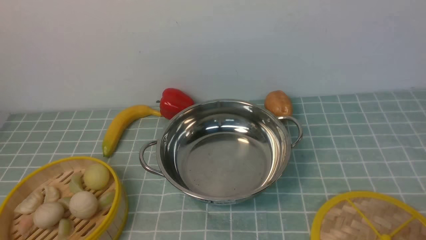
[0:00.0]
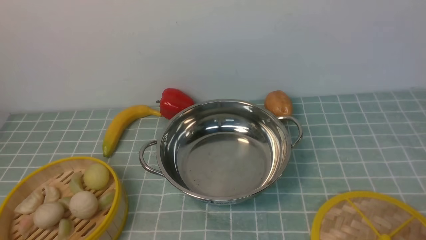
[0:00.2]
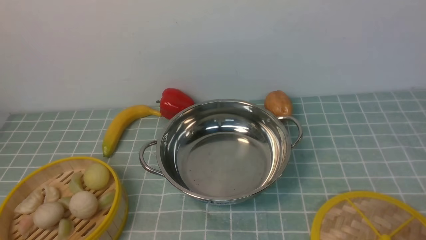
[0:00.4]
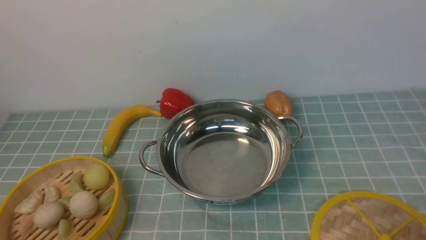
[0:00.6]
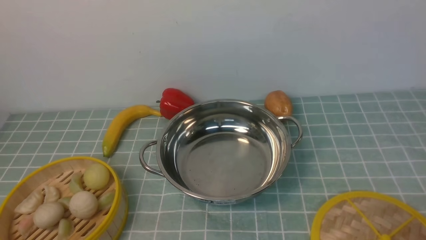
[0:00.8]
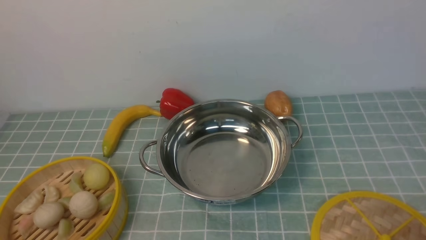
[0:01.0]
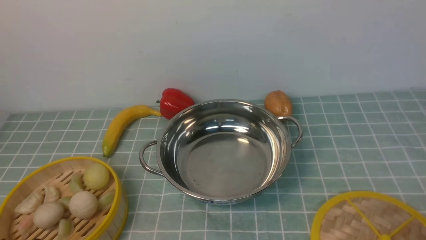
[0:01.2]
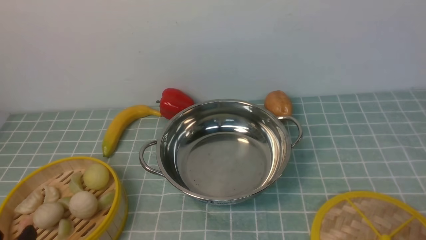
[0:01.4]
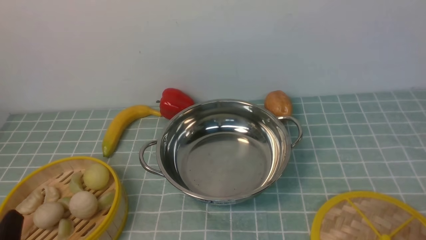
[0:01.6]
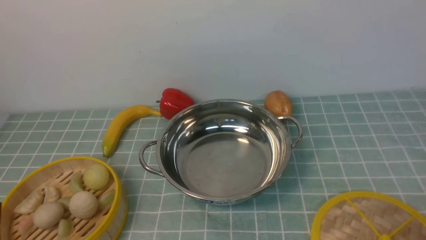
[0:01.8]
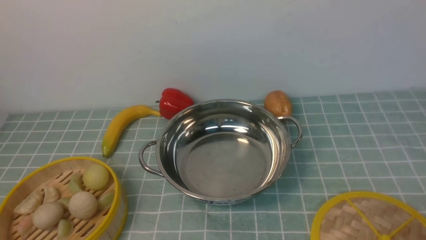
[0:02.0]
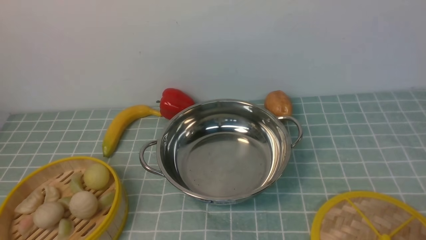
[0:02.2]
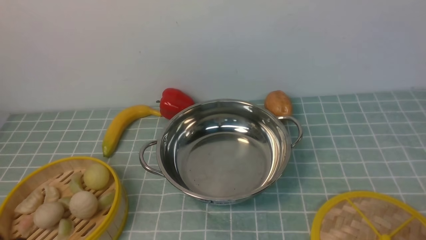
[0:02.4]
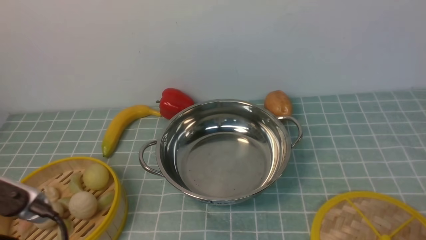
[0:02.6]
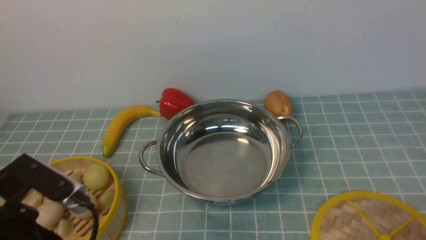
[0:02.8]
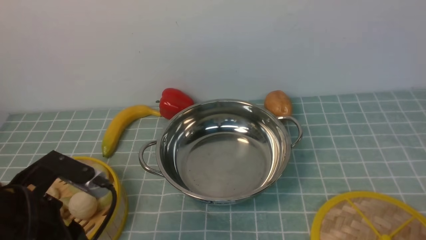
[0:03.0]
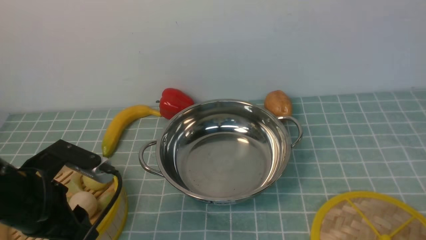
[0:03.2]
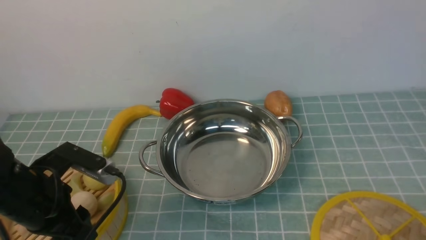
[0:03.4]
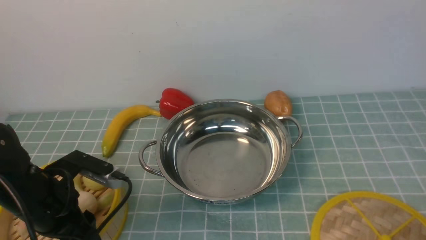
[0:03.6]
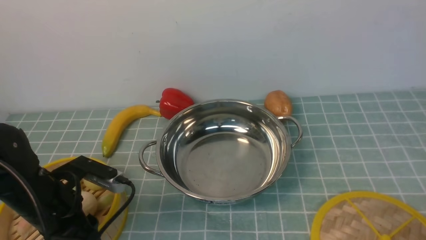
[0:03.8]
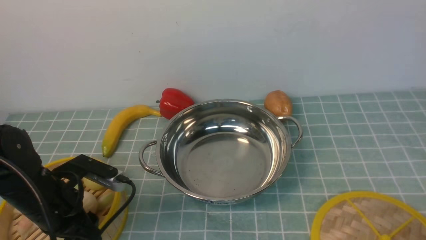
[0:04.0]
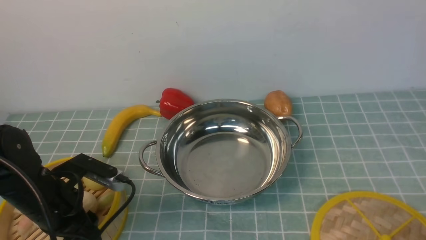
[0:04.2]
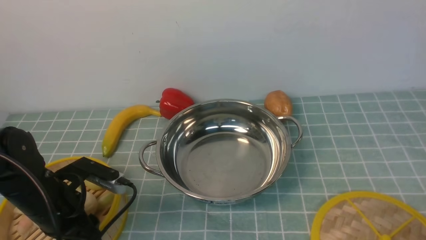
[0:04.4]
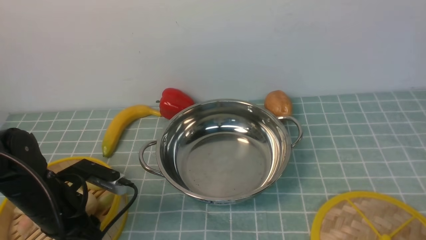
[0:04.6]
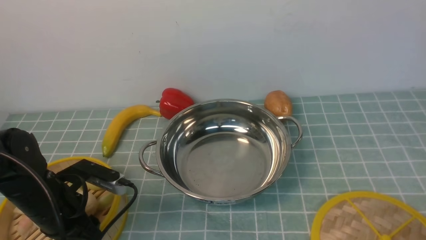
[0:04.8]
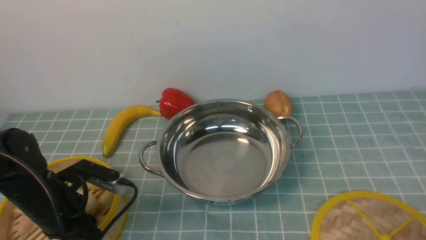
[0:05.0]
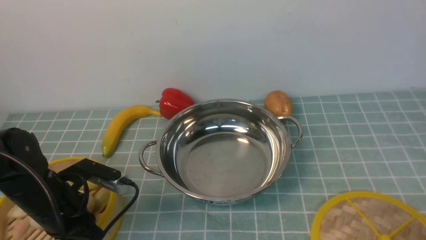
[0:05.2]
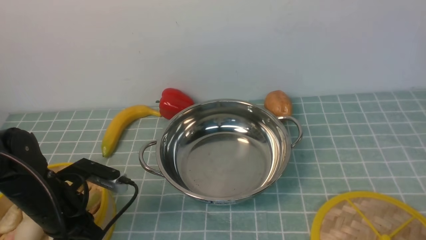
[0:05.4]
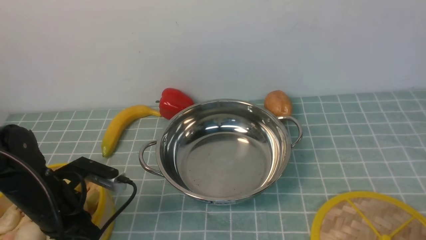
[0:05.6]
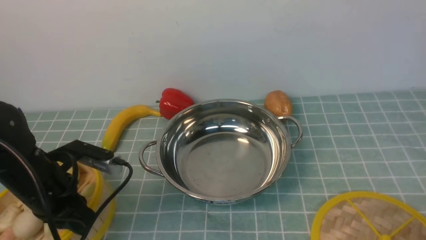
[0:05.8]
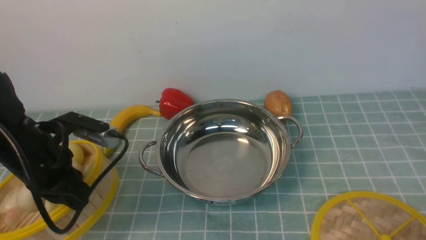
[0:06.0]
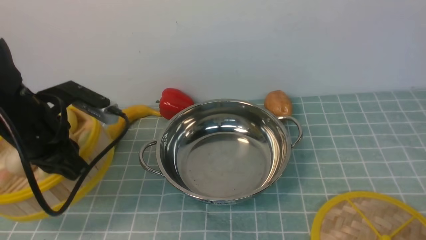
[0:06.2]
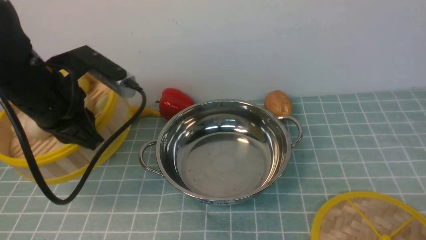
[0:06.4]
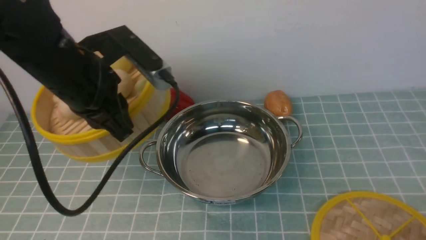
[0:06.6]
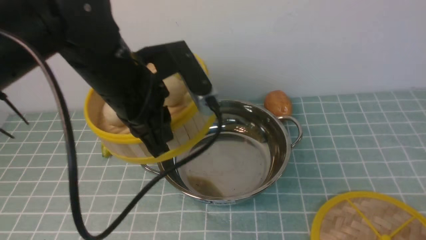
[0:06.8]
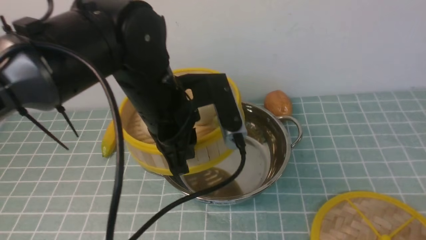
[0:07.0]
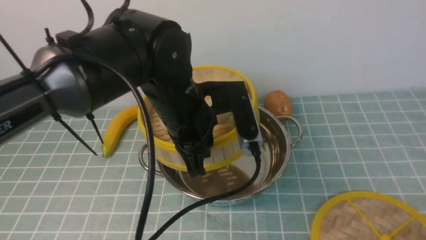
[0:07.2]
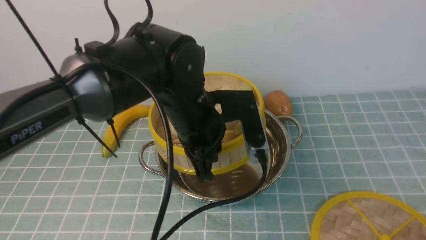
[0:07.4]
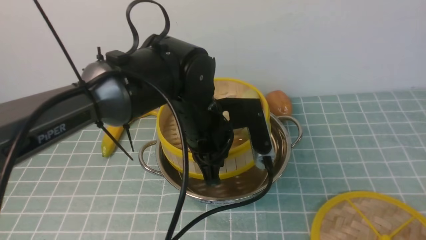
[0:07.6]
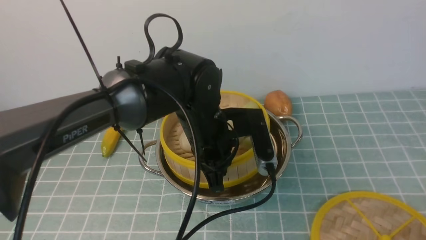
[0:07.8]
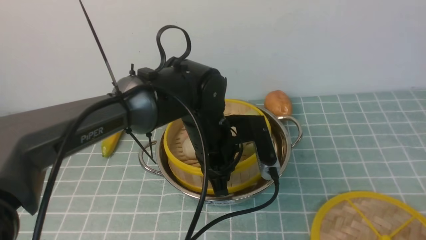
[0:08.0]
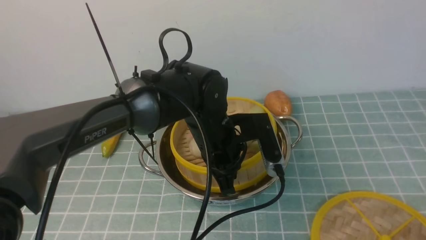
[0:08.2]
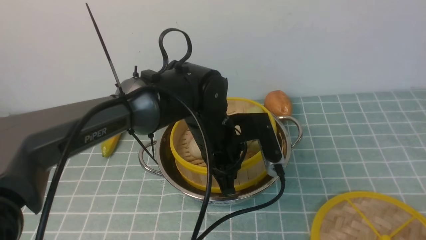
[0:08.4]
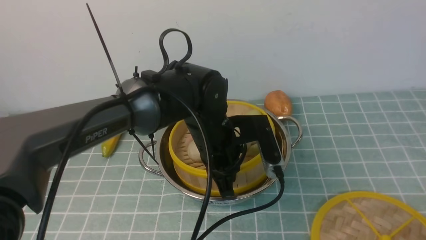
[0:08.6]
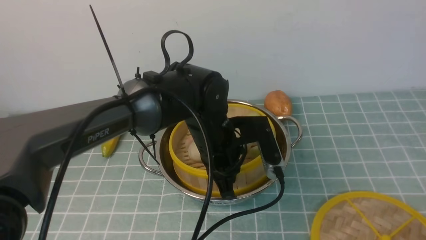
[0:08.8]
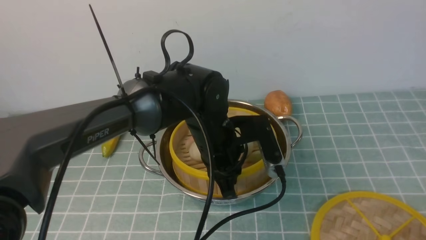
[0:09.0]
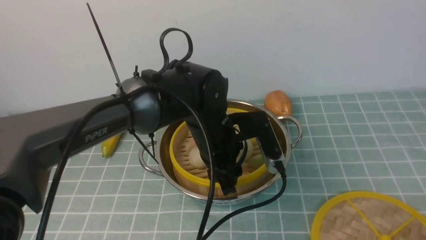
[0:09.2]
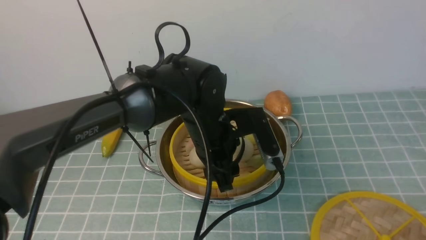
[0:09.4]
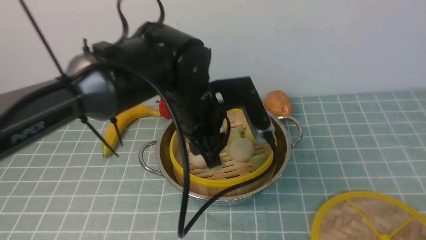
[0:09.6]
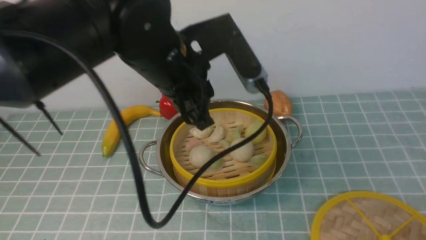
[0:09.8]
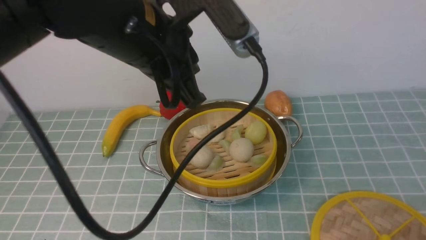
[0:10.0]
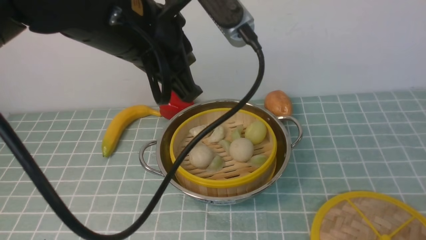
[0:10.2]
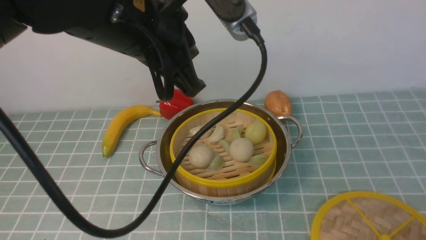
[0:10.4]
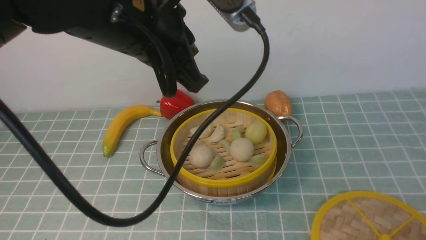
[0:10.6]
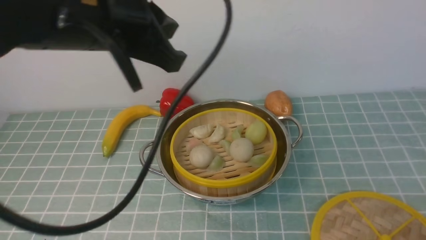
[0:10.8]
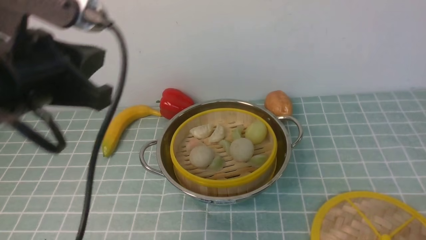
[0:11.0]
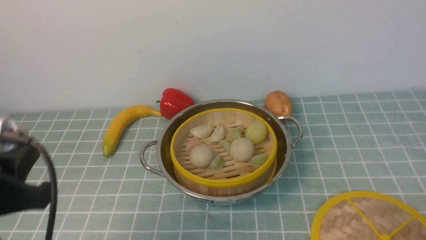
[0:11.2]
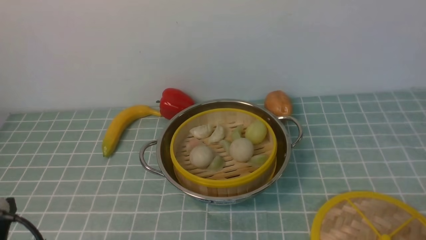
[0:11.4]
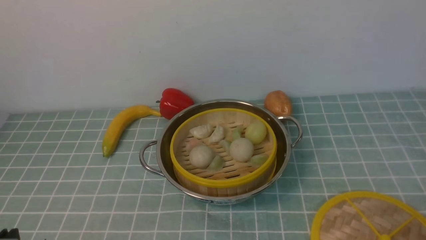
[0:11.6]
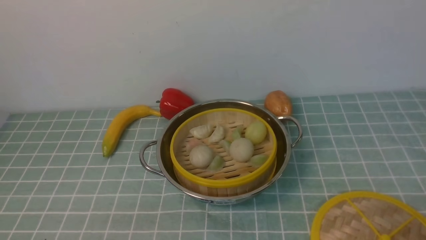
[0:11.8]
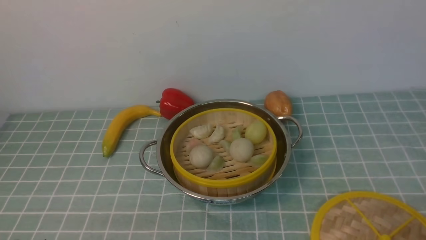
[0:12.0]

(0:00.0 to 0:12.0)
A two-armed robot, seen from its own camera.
Task of the whole recording: place the steamer in the pot on the blue tablecloth, and put the lid on the steamer.
Step, 0:00.0 - 0:06.2: use the left arm to lift the steamer closest to it.
Step, 0:06.4 - 0:09.6: use the left arm to put the steamer into the iron steamer pot in the middle.
0:01.6 - 0:03.0: The left gripper shifts some 10 cm forward.
0:03.0 - 0:04.4: The left gripper moves downward and forward, some 10 cm.
0:04.4 - 0:06.0: The left gripper moves upward, roughly 10 cm, and closes up.
0:06.0 - 0:07.6: The left gripper is displaced to the right by approximately 20 cm.
0:07.6 - 0:09.0: The left gripper opens up.
0:09.0 - 0:10.4: The left gripper moves upward, roughly 20 cm, and closes its fingers.
0:10.4 - 0:12.0: The left gripper moves downward, backward and to the left, some 35 cm.

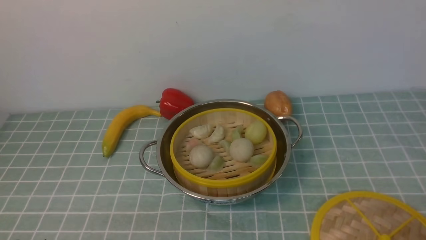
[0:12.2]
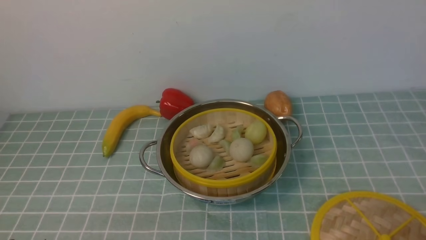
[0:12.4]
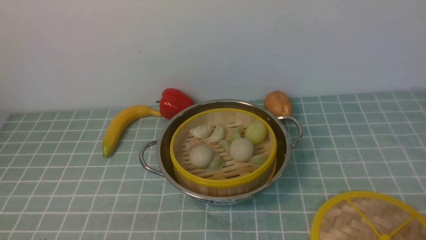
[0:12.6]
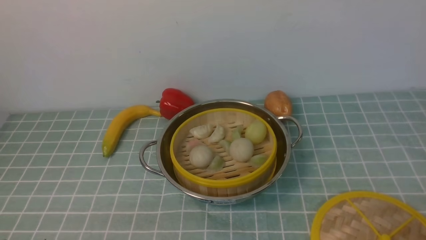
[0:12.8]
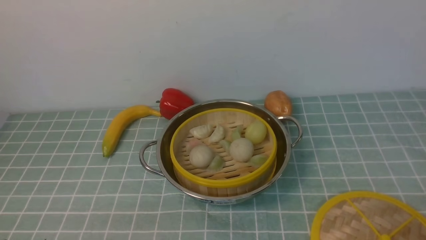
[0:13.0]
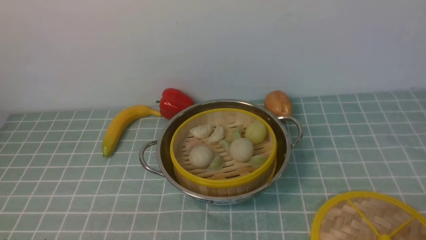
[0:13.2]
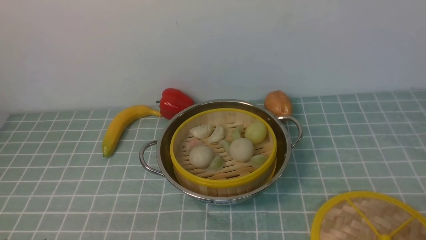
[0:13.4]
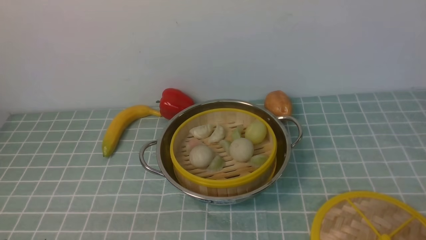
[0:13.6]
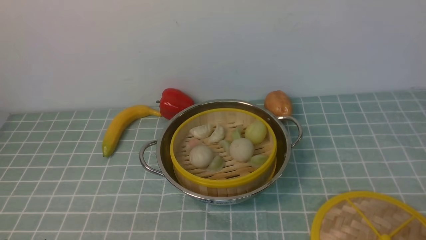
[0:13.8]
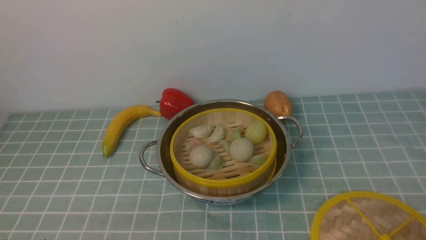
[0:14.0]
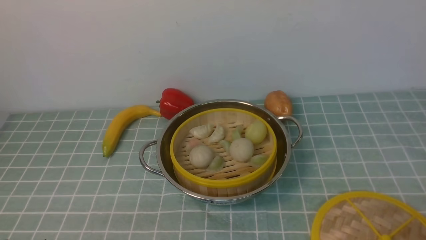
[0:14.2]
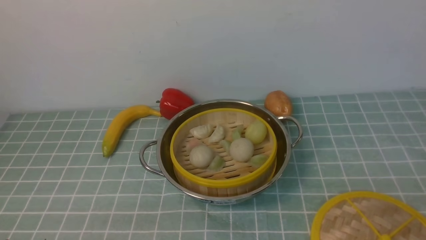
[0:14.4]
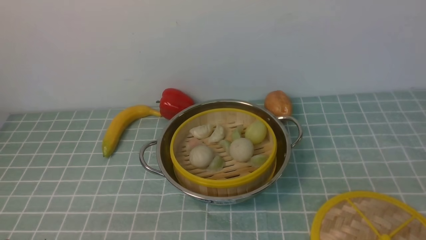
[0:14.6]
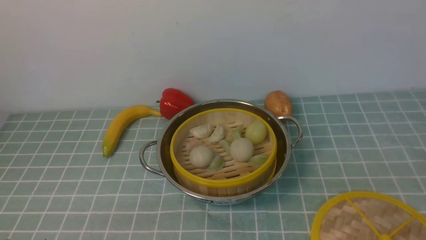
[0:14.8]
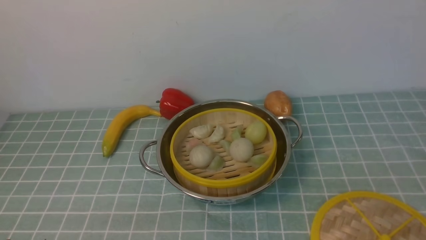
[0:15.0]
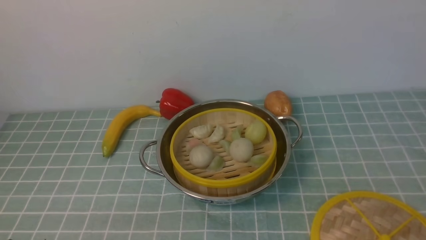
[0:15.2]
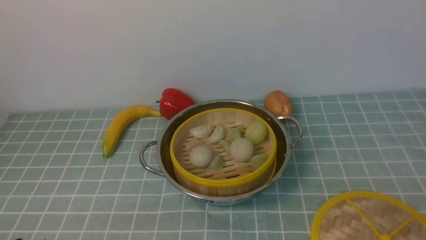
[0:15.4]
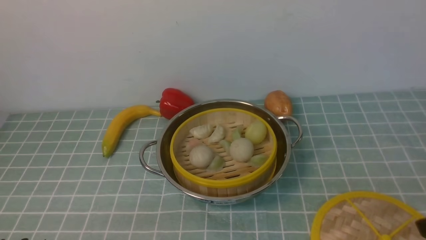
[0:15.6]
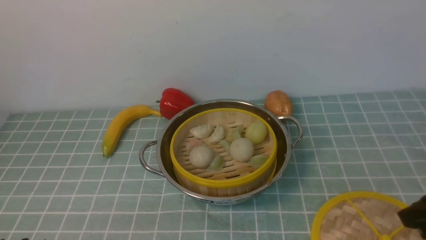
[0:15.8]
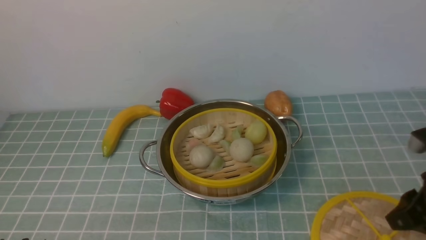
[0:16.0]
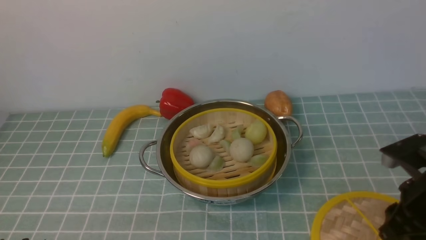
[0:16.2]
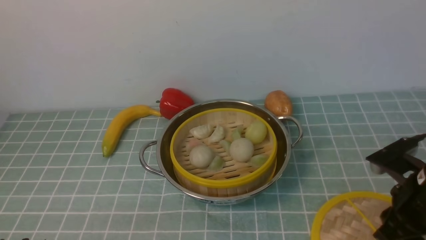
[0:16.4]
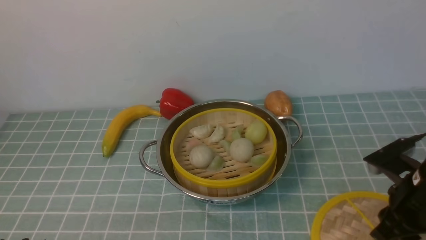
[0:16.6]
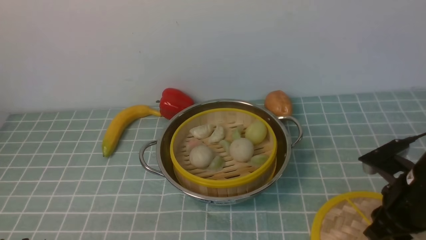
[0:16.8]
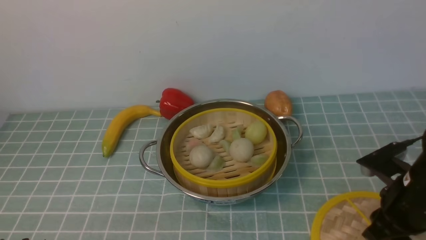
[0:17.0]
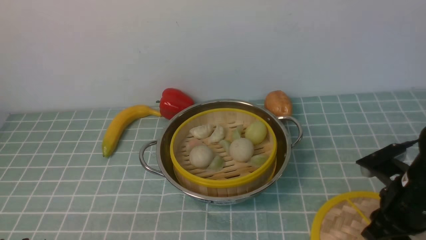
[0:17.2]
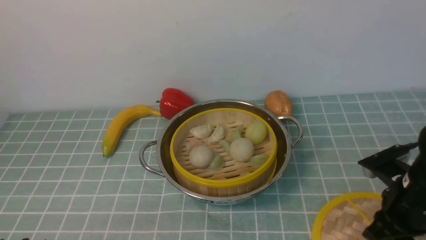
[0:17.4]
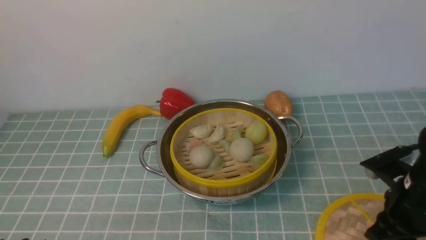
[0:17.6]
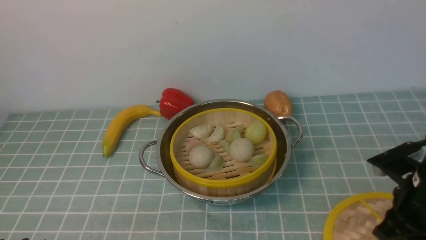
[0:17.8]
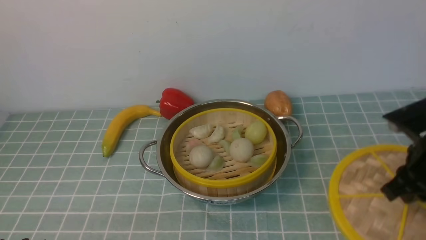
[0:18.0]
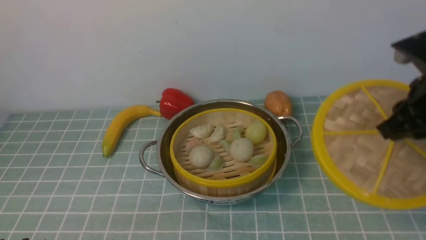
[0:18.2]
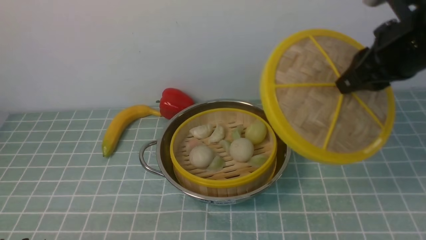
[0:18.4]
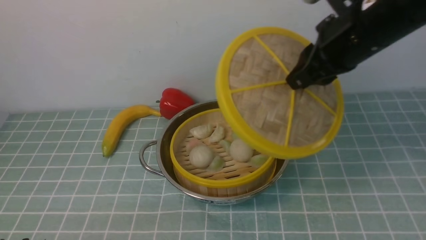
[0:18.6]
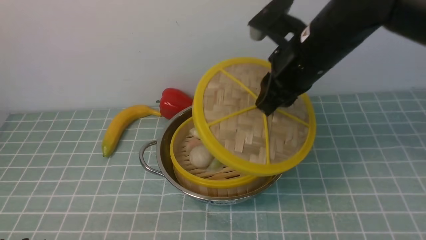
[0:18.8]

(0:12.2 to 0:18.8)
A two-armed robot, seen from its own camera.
Task of the whole recording: place the steamer in the pot on the blue tablecloth, and put the lid on the steamer.
Step, 0:12.2 - 0:18.2: use the right arm to lift the lid of the steamer.
0:15.4 - 0:17.2: The right gripper heads forward and downward, covering approximately 20 cm.
0:17.2 - 0:18.8: The right gripper shifts some 25 cm upward, to the left and forward.
